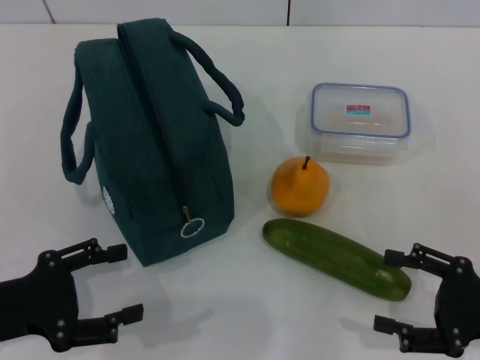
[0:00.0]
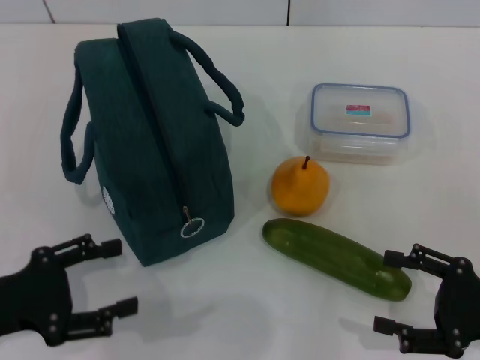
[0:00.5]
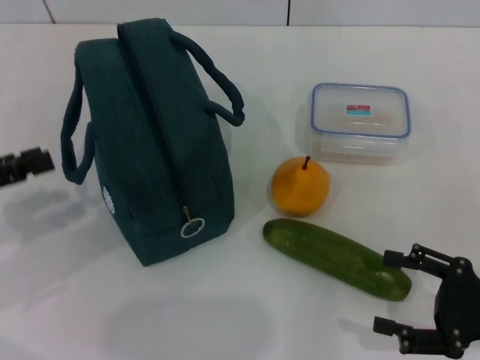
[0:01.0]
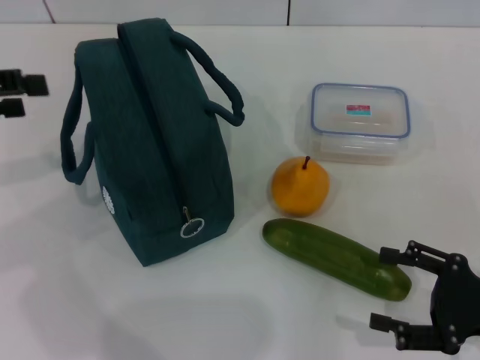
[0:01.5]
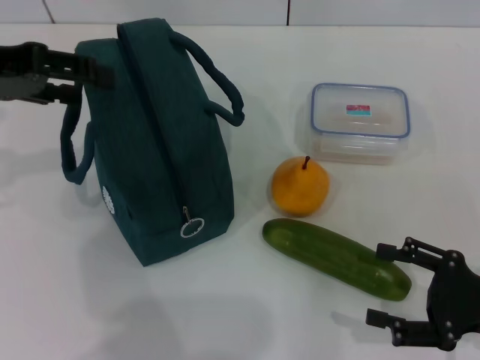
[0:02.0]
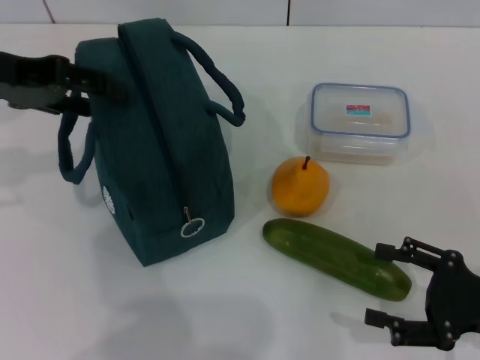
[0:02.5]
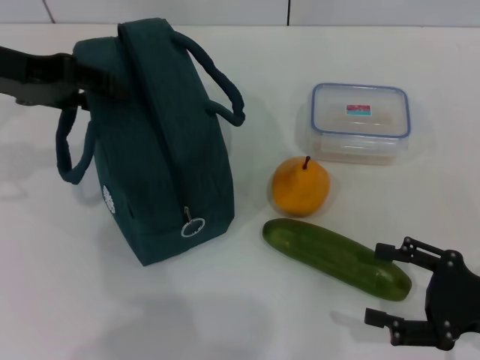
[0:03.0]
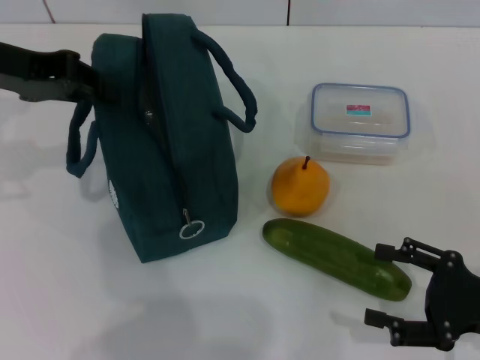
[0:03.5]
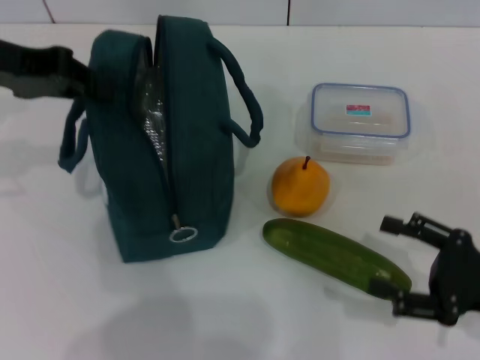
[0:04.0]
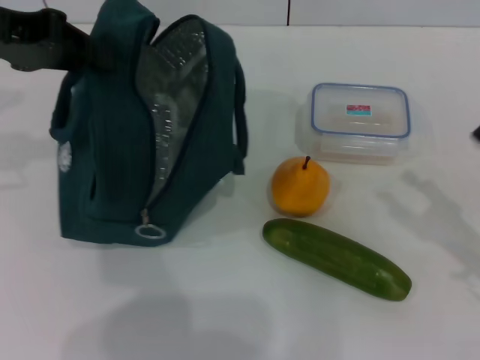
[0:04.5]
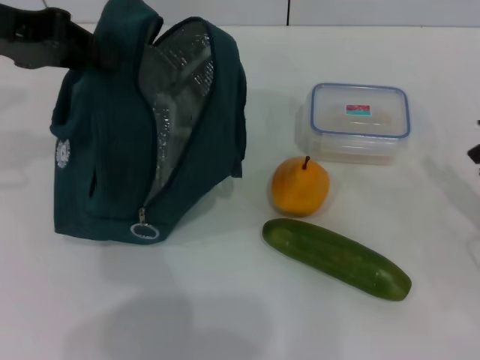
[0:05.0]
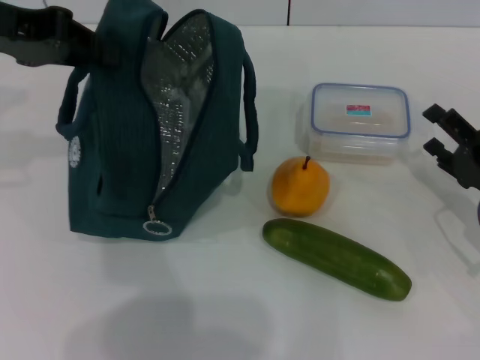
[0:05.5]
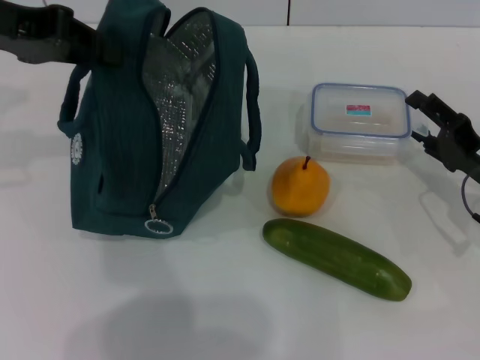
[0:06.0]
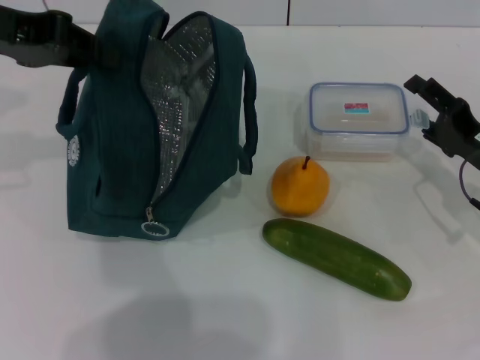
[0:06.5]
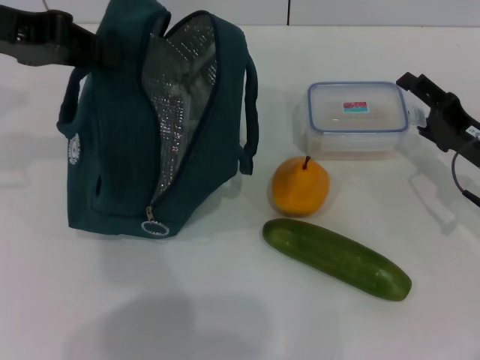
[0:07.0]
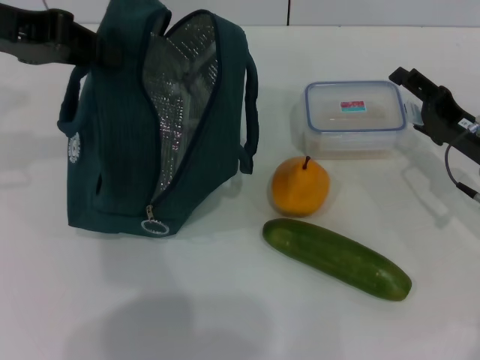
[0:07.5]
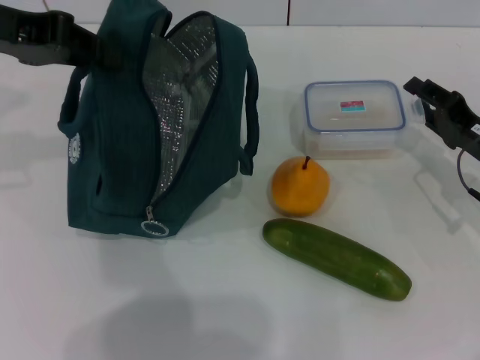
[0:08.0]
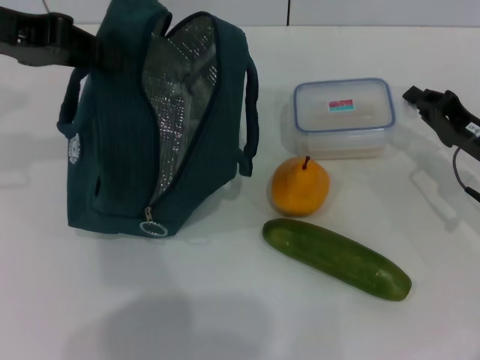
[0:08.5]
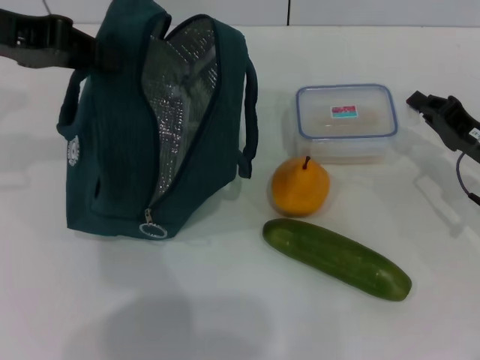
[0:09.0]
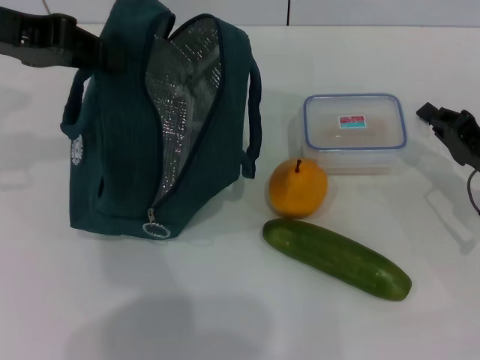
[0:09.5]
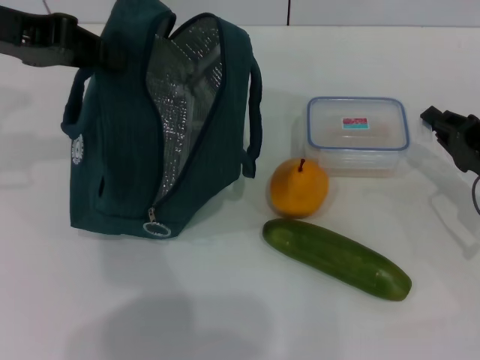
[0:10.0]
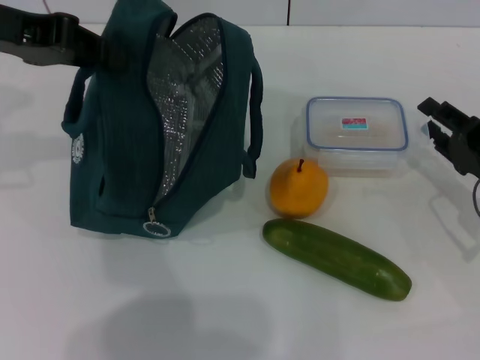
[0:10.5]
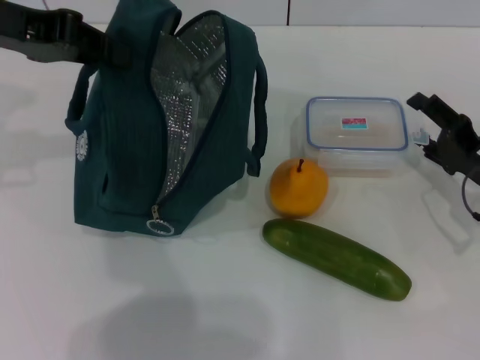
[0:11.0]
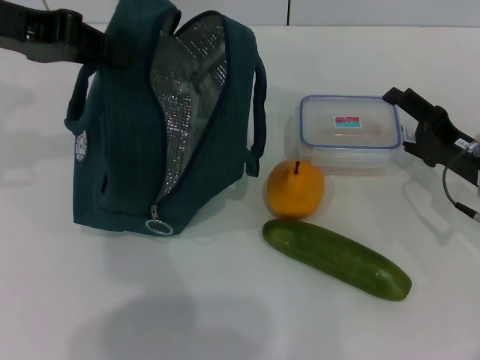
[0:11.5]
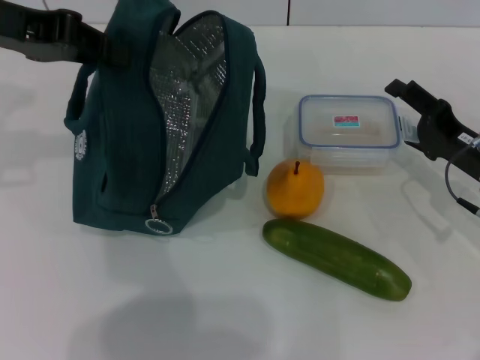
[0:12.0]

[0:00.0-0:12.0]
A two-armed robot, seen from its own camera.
Step, 0:00.0 to 0:03.0: Hold the lunch bag with your left hand.
0:00.0 to 0:02.0: The left gripper is displaced upward and forward by some 25 cm.
0:02.0 to 0:04.0: The left gripper closes.
0:04.0 to 0:06.0: The right gripper travels forward by about 10 cm.
0:06.0 to 0:08.0: There are only small adjustments of the grippers.
0:08.0 to 0:10.0: The right gripper closes up.
0:10.0 to 0:12.0: The right gripper opens.

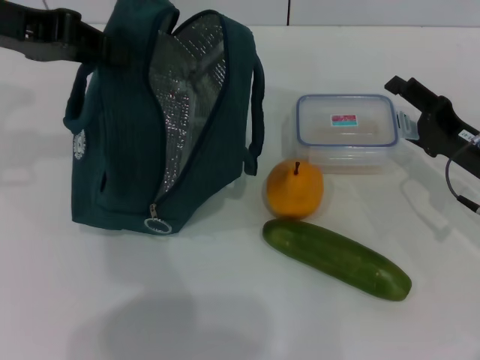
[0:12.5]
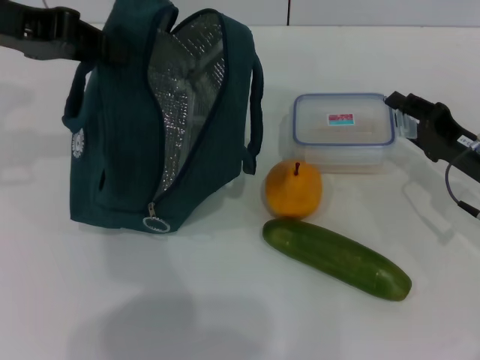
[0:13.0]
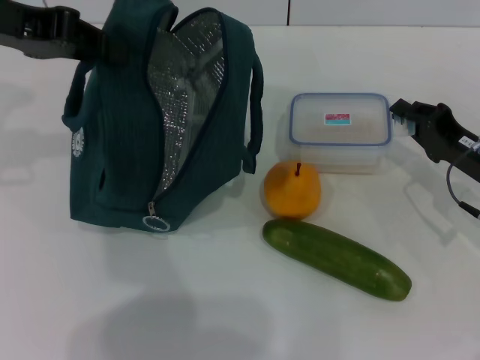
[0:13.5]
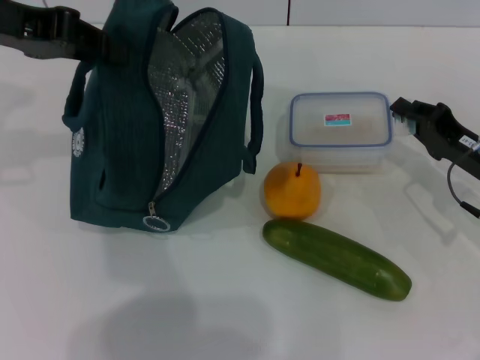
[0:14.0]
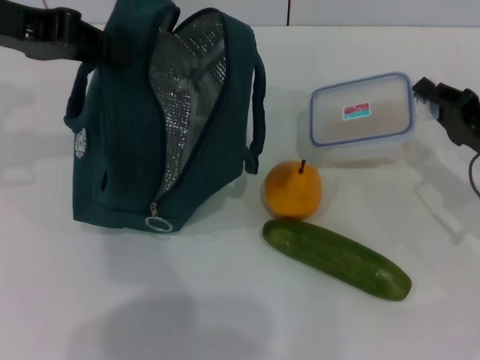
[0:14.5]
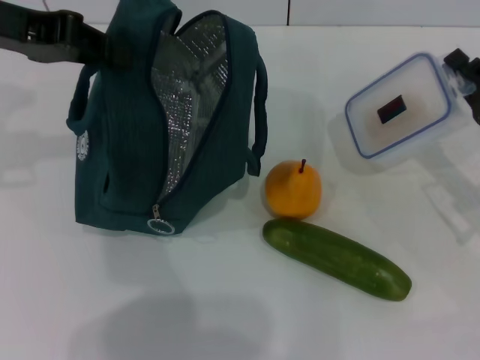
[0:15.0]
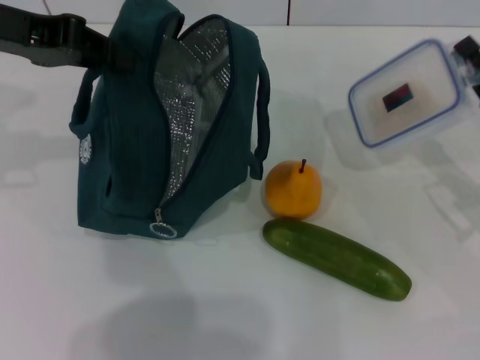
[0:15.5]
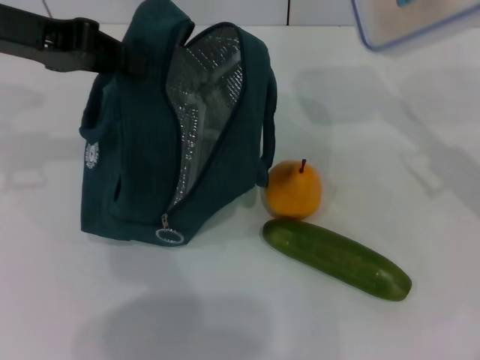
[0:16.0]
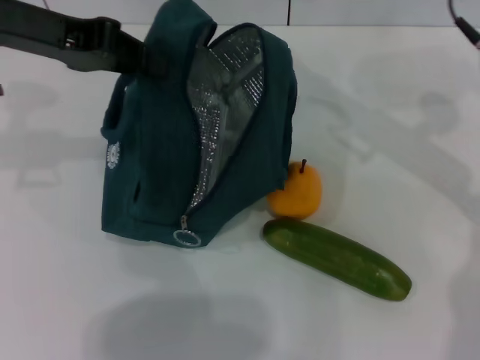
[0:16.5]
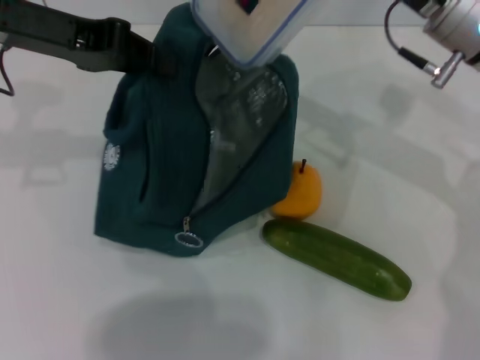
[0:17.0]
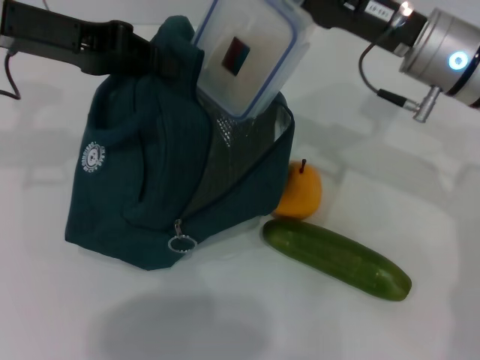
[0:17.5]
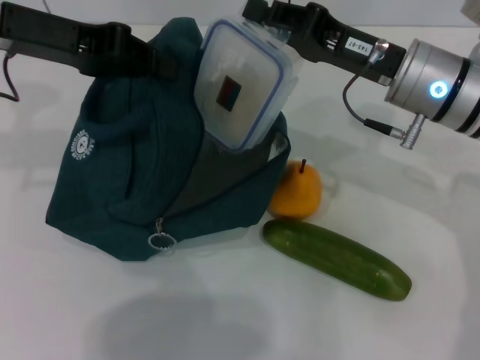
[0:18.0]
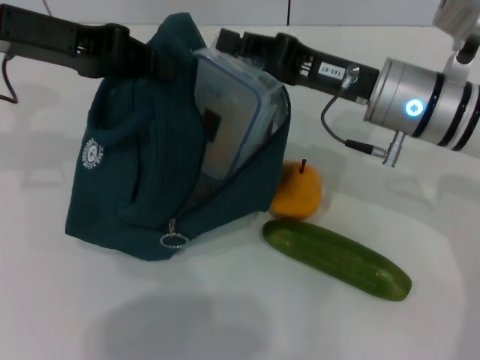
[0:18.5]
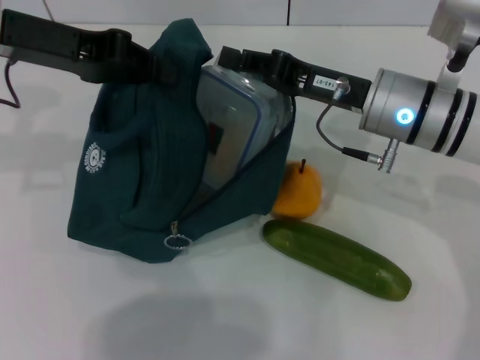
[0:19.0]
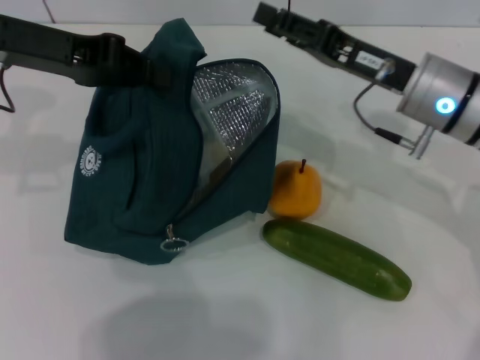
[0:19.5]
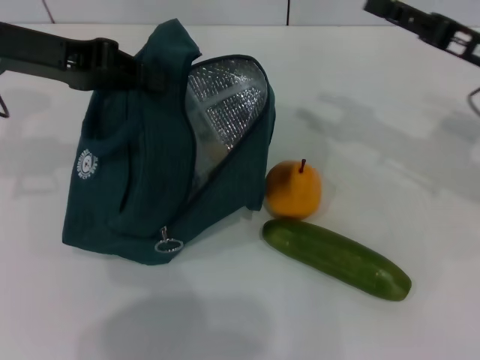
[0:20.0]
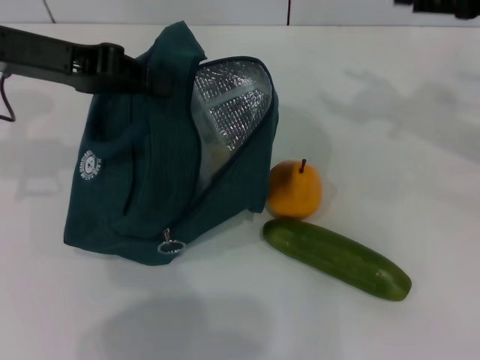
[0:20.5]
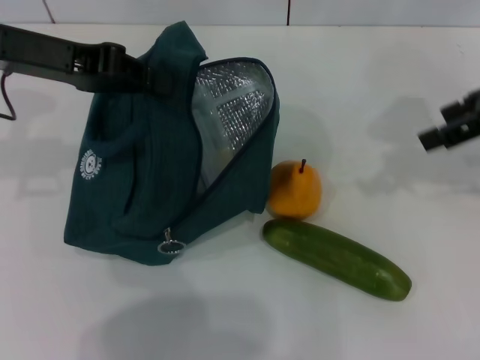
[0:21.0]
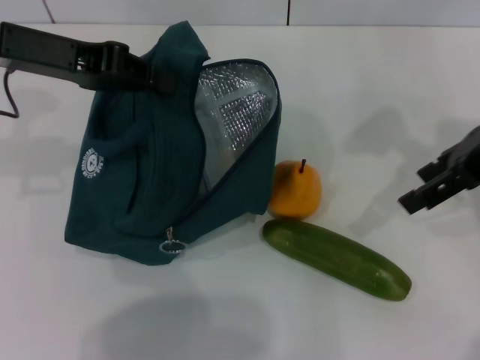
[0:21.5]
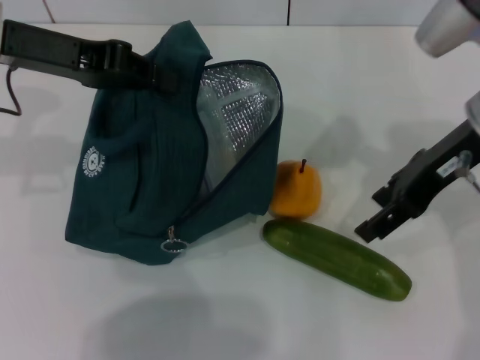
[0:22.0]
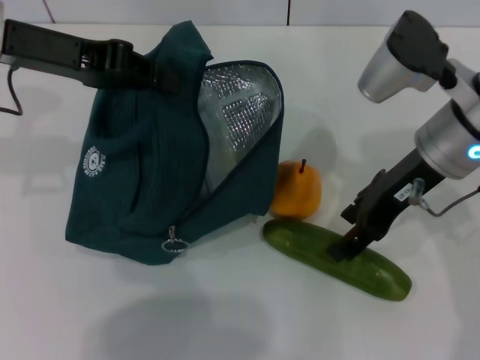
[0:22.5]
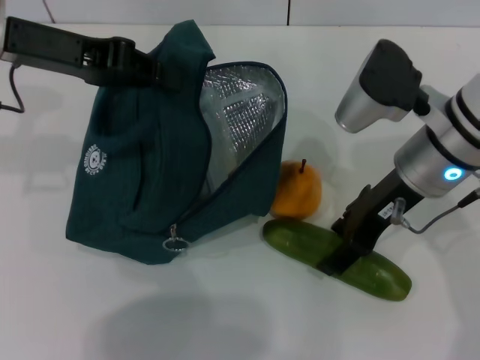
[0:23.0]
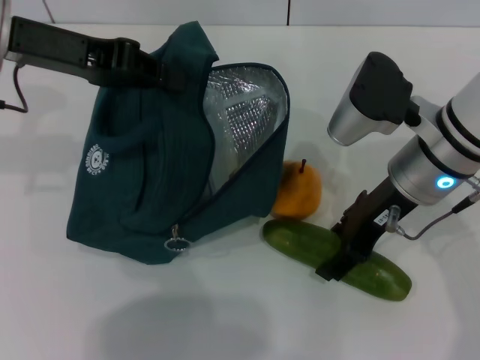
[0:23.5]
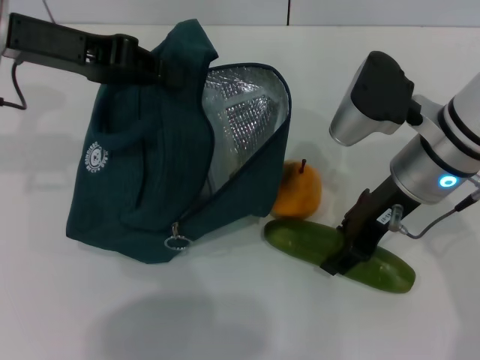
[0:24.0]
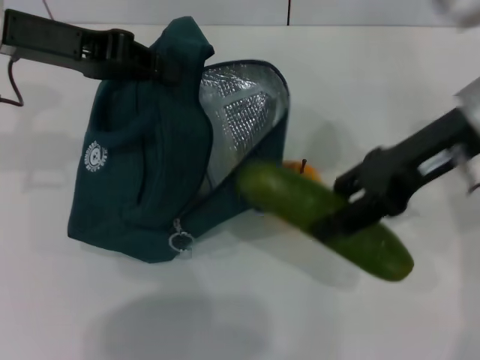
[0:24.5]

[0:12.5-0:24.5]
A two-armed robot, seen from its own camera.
Step, 0:14.0 to 0:19.0: Place the lunch box into the lunch bag with your right hand.
Step, 0:20.0 to 0:23.5: Pick up the cucumber with your right hand.
0:12.5 to 0:14.5: The right gripper closes its fingers.
0:14.5 to 0:16.5: The right gripper travels upward, to the left and forward by some 15 cm.
0:16.5 to 0:18.5: The right gripper heads to the left and downward, covering roughly 10 cm.
0:18.5 to 0:20.5: The right gripper heads to the right and upward, covering some 20 cm, and opens up.
0:20.5 to 0:22.5: The right gripper travels to the left and downward by some 15 cm.
0:22.5 to 0:24.5: The right gripper moves roughly 5 cm.

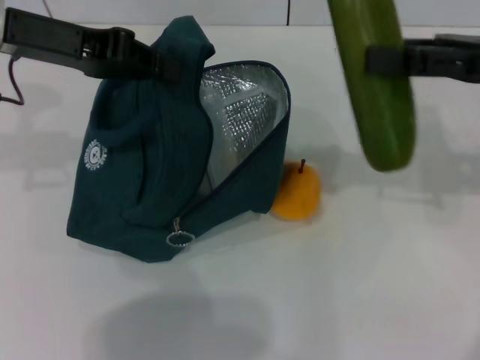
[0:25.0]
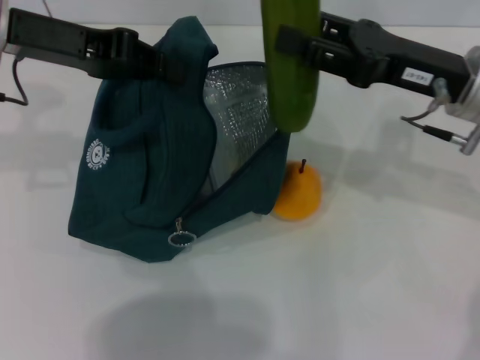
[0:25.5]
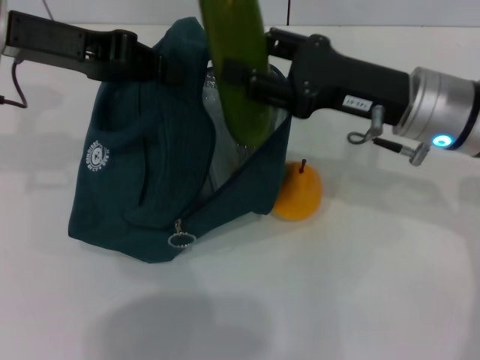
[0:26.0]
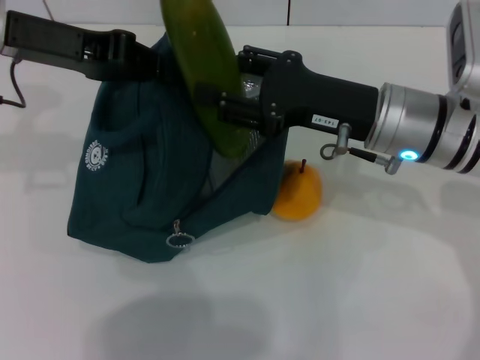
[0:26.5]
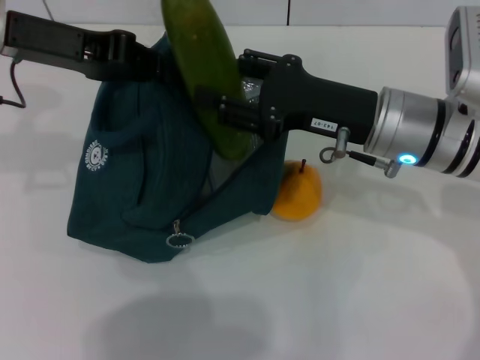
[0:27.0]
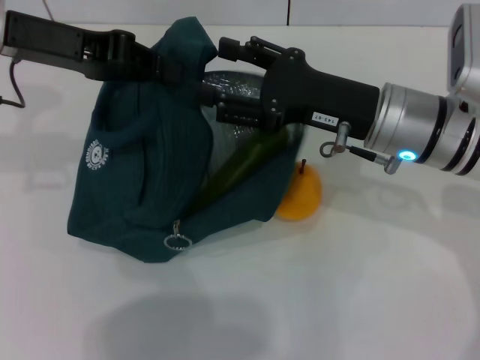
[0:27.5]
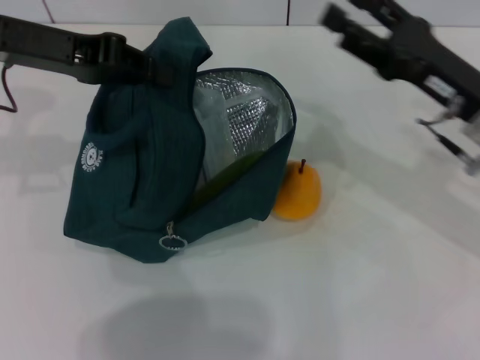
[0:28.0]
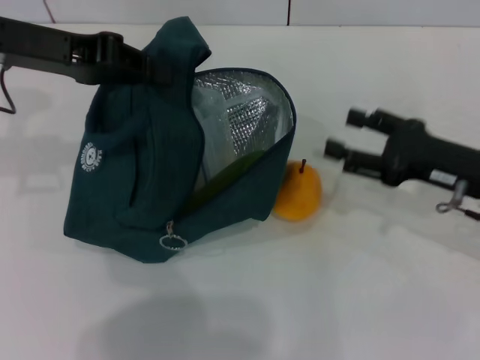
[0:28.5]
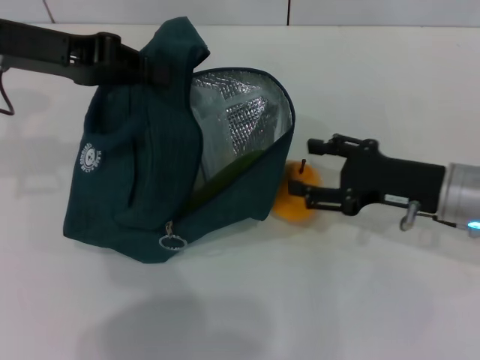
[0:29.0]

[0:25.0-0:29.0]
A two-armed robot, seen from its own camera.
Step, 0:25.0 to 0:27.5: Put the cucumber into the lunch bag with your right hand.
0:25.0 to 0:27.0: The right gripper goes roughly 15 cm to the left and downward.
0:27.0 to 0:29.0: The right gripper shifts approximately 10 cm to the right and downward.
